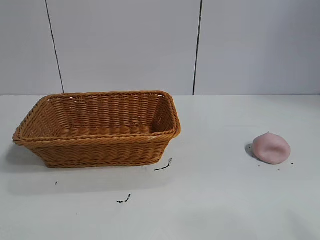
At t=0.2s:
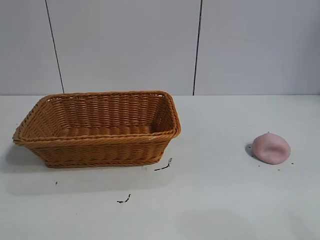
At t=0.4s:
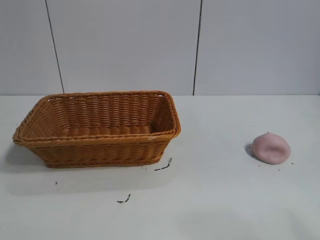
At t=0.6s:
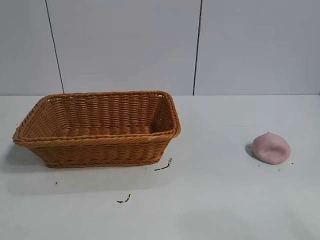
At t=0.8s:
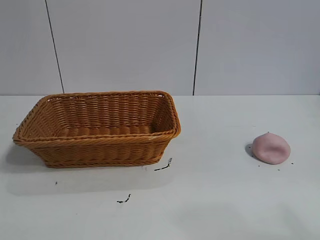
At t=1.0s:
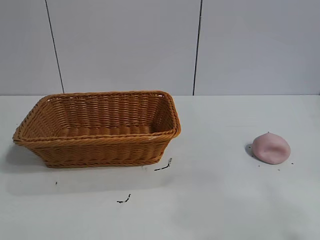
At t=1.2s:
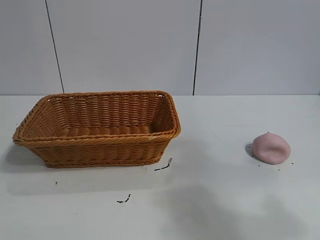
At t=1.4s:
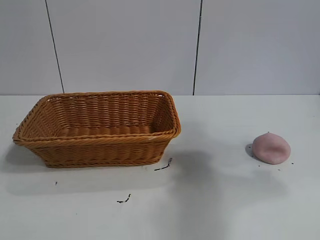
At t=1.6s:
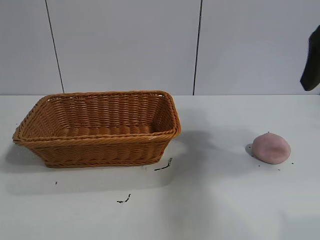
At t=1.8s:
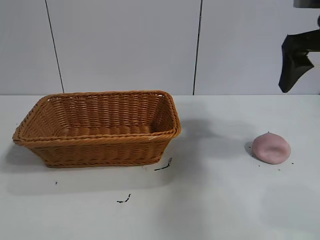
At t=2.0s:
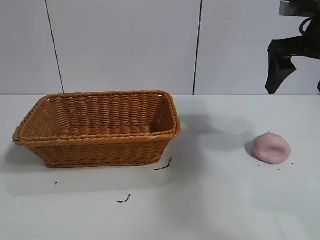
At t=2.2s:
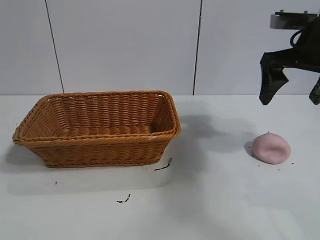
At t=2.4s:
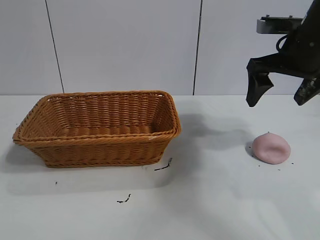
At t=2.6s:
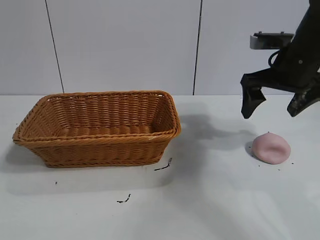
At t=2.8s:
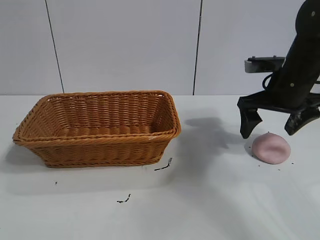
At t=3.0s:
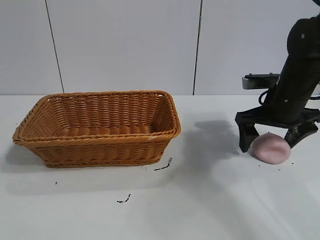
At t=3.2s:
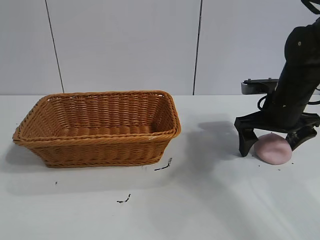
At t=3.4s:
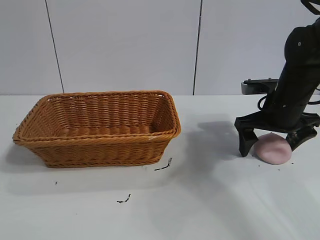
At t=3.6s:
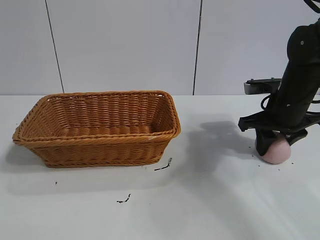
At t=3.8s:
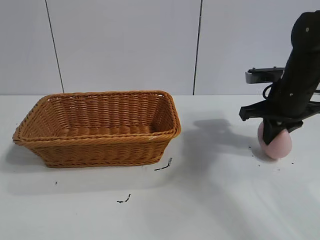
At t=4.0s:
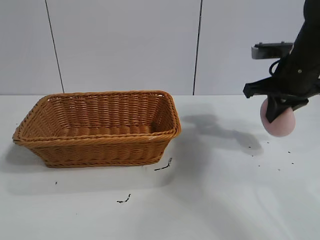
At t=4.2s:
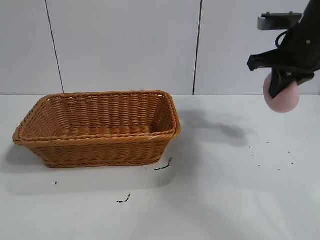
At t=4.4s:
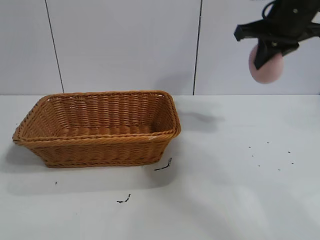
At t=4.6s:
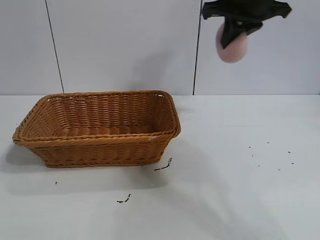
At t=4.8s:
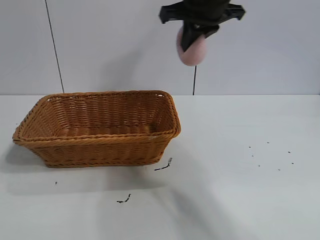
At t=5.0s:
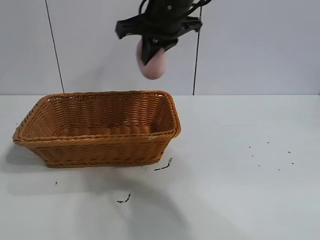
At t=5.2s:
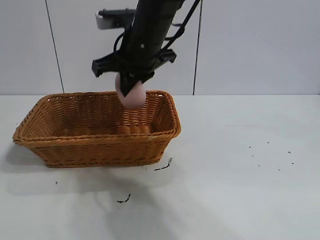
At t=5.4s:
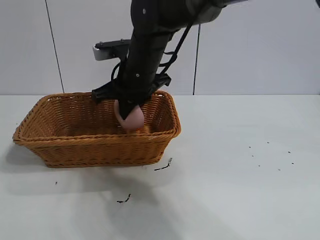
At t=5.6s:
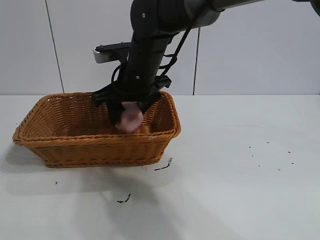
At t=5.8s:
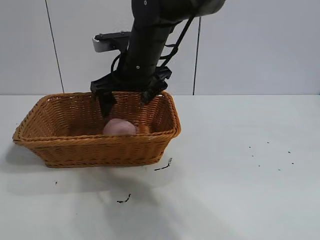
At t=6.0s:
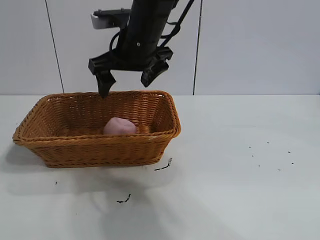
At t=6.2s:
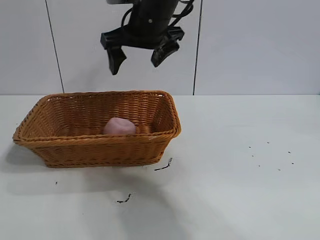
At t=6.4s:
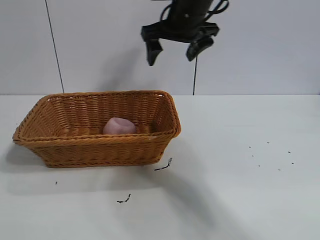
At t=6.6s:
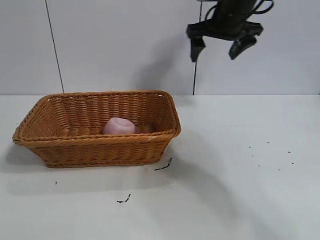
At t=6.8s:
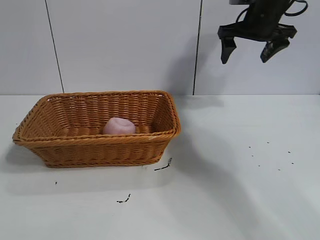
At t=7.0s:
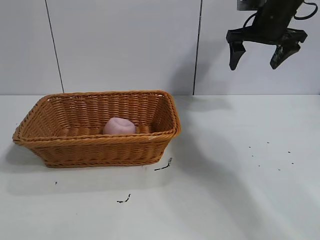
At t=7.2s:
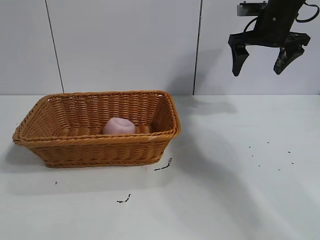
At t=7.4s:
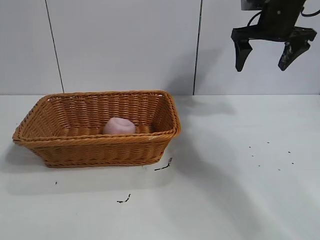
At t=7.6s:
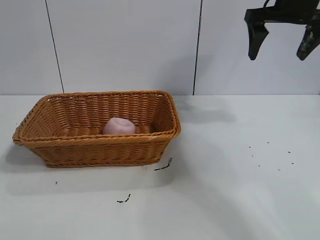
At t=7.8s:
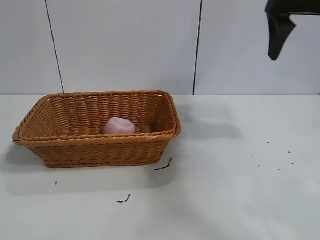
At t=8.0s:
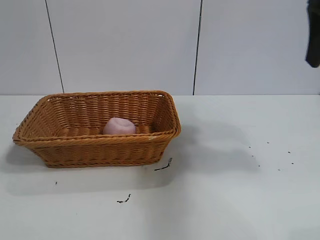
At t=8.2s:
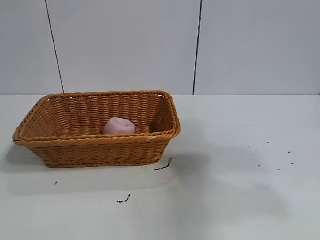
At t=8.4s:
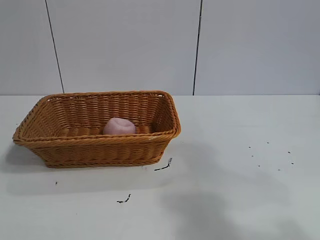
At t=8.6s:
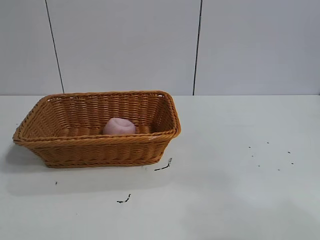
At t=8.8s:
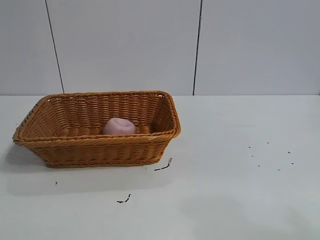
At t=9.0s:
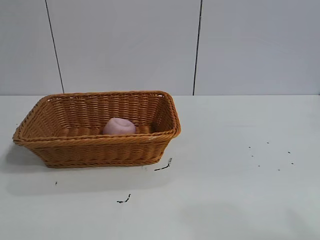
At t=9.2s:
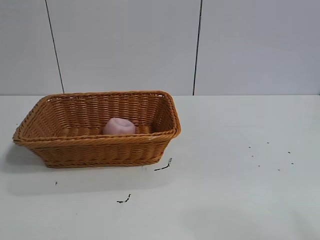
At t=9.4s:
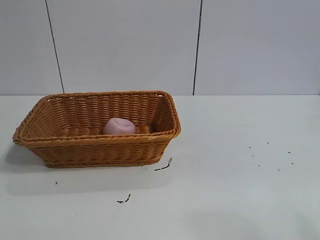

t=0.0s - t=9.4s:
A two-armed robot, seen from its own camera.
Task of the whole recording: pick up the peach and put it into the basket.
Step, t=0.8s - t=3.6s: Grasp the peach with right gripper.
Step, t=3.8s - t=5.6s: Place the peach in the basket with right gripper.
